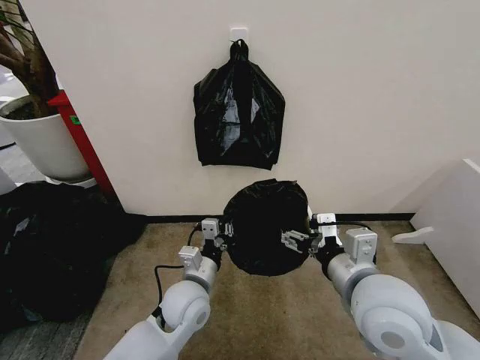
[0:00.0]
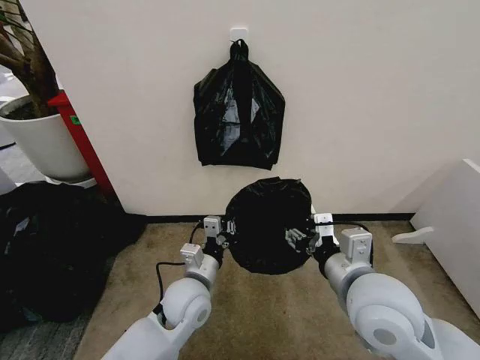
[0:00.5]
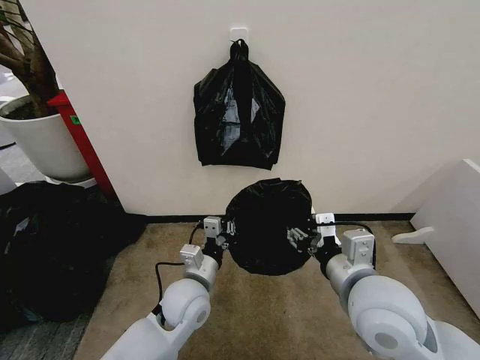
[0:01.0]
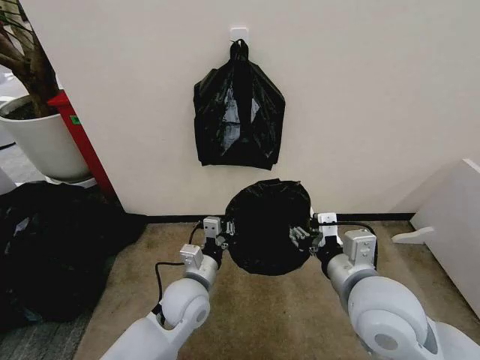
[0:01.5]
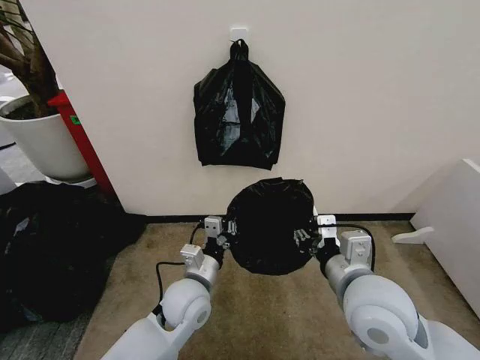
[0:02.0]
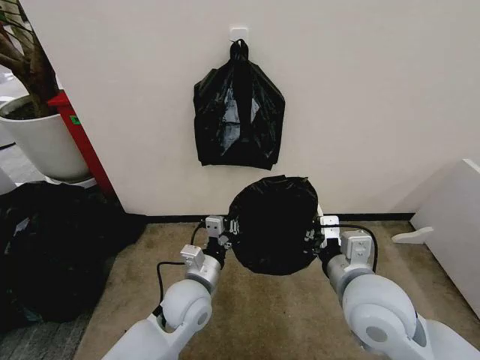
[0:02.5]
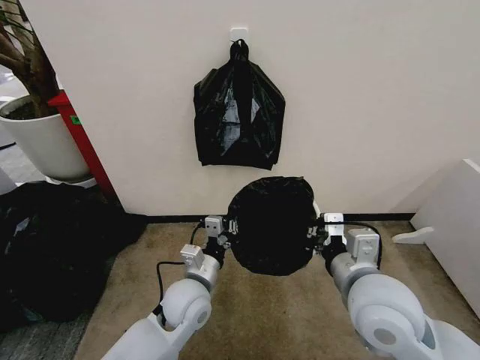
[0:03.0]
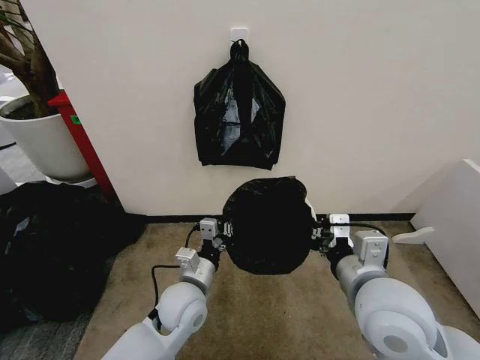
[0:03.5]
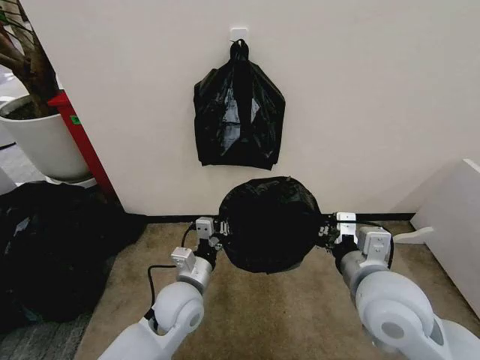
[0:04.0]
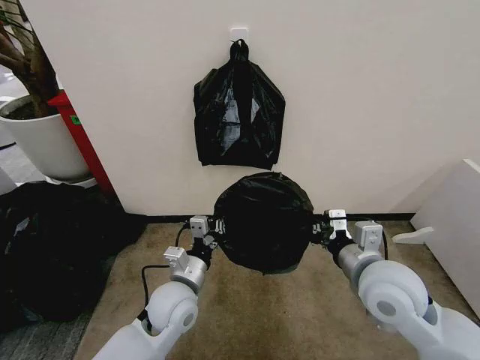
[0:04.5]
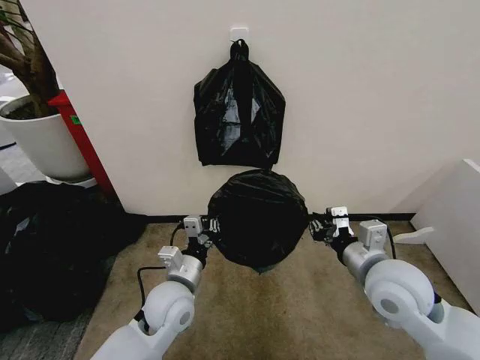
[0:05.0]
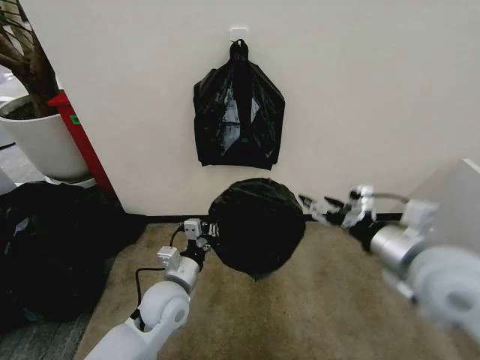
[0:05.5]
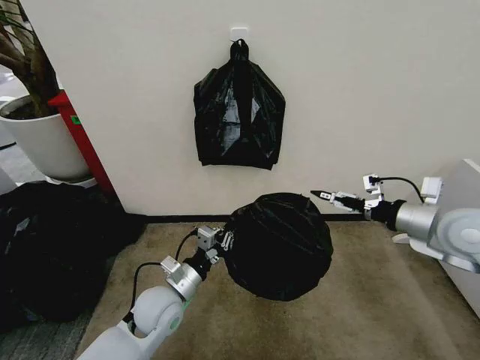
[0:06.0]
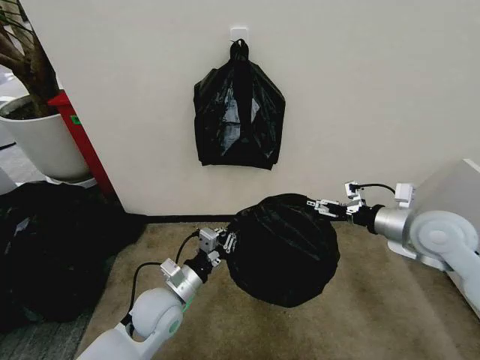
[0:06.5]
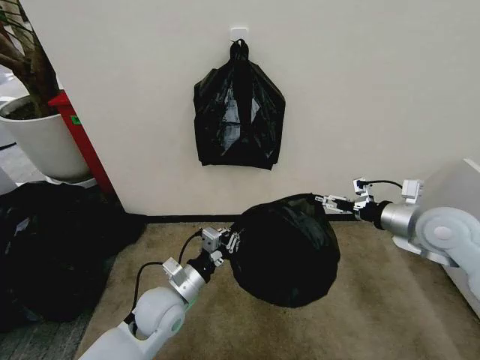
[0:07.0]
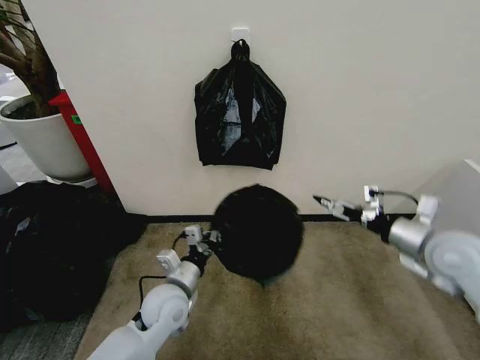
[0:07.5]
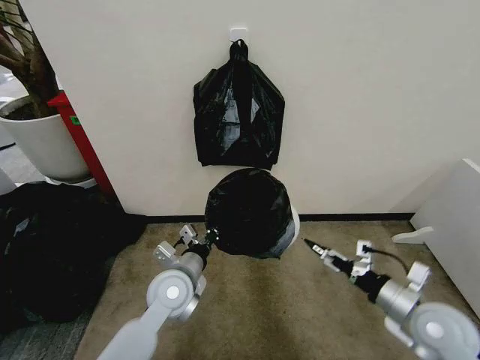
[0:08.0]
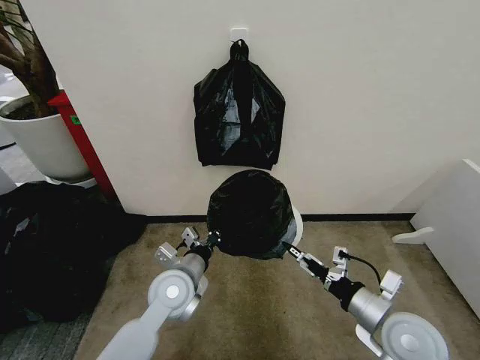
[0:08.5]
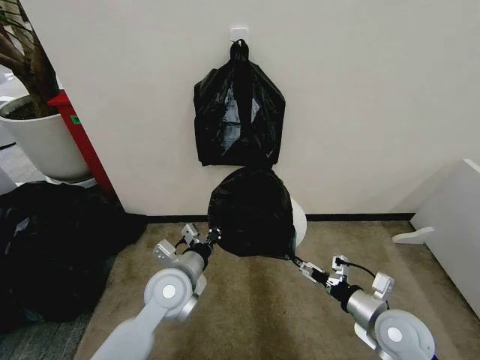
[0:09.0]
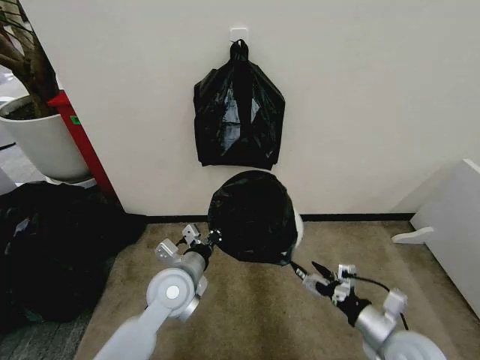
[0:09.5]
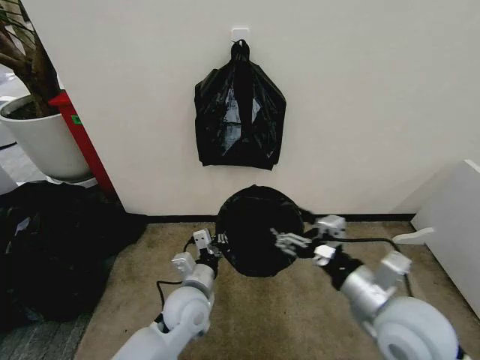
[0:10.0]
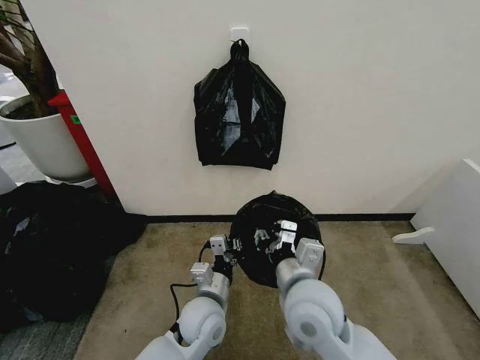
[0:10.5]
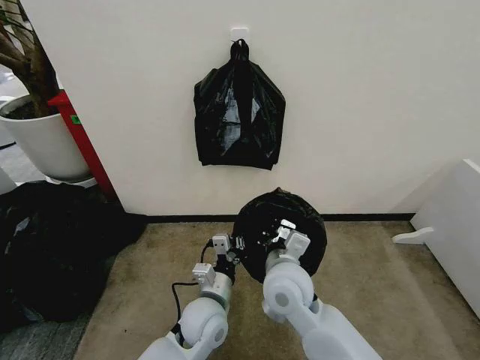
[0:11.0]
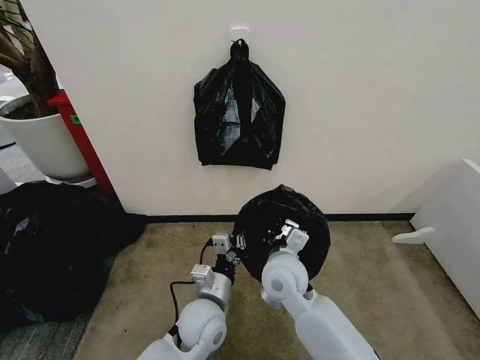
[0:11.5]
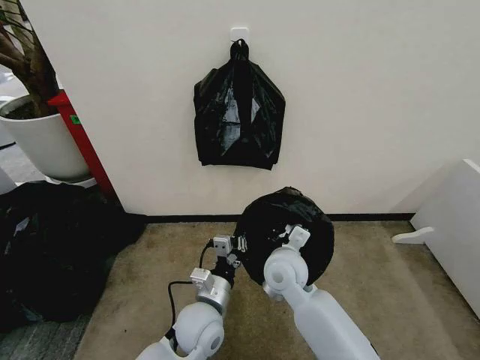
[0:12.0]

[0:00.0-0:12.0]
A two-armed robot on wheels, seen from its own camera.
Task of the whole recording: Place the garbage bag over the trash bin.
0:00.0 to 0:02.0: The right gripper closes.
0:02.0 to 0:04.0: The right gripper closes up.
0:04.0 to 0:06.0: The left gripper shifts by about 5 cm, while the right gripper heads to the right and forward, covering roughly 20 cm, and opens.
0:06.0 to 0:08.0: The right gripper is displaced downward and backward by about 20 cm.
0:08.0 to 0:10.0: The left gripper shifts by some 5 cm; the right gripper shifts approximately 15 cm to the left and upward.
0:10.0 to 0:12.0: The right gripper travels to the left, forward and downward by about 25 cm, and closes.

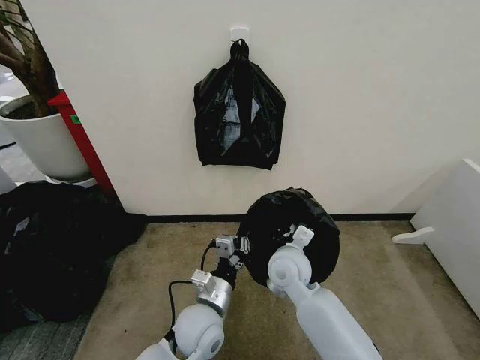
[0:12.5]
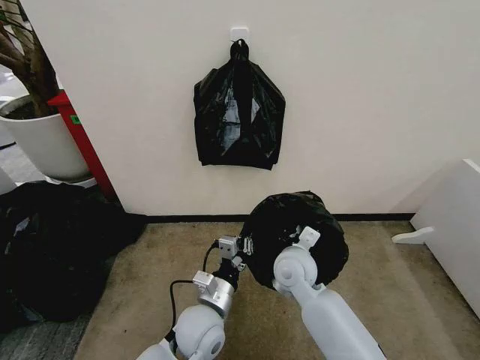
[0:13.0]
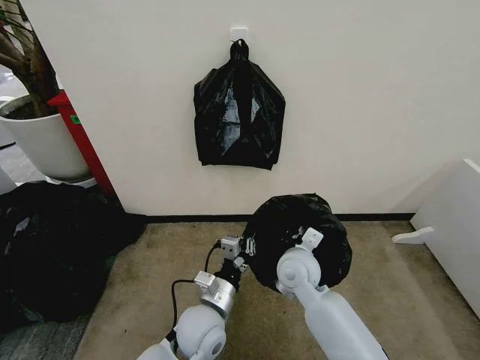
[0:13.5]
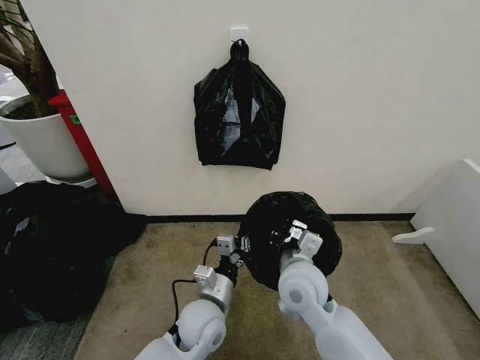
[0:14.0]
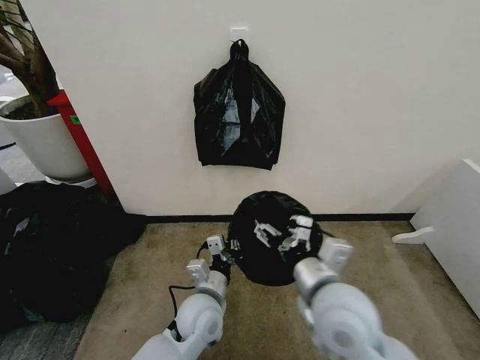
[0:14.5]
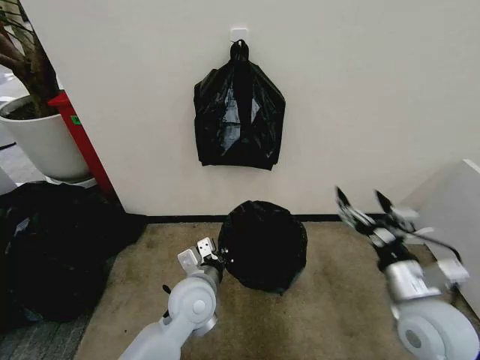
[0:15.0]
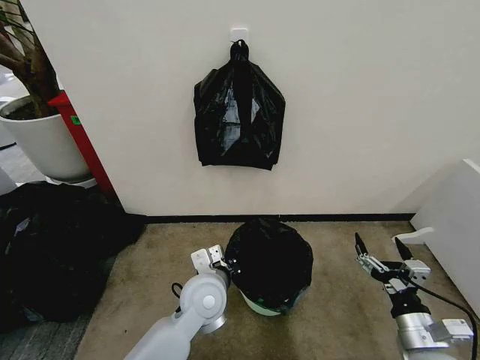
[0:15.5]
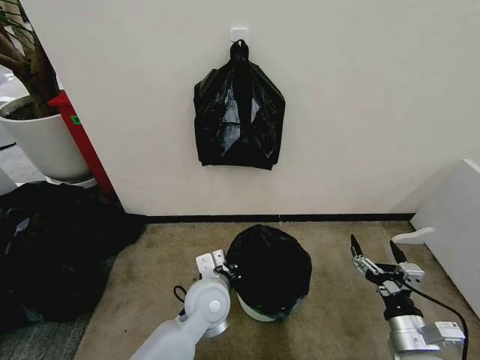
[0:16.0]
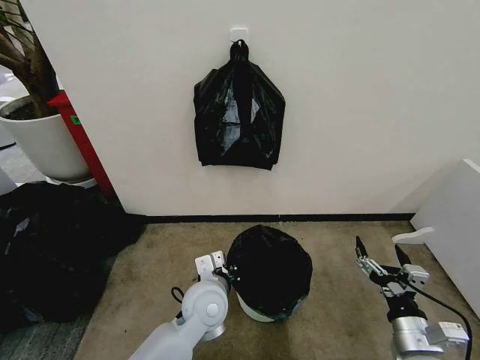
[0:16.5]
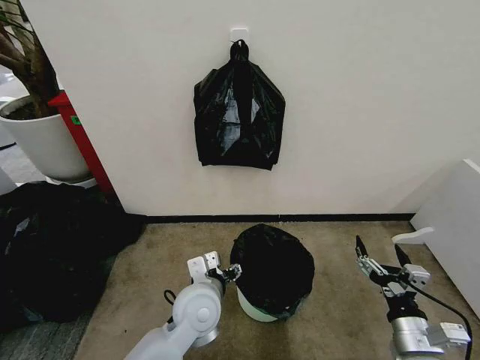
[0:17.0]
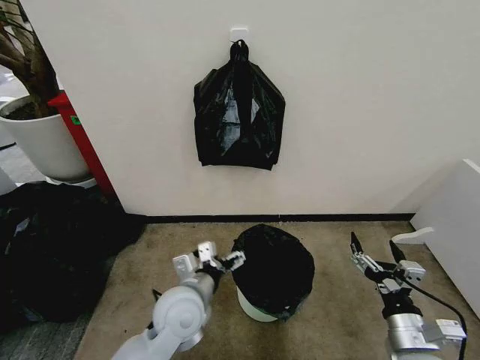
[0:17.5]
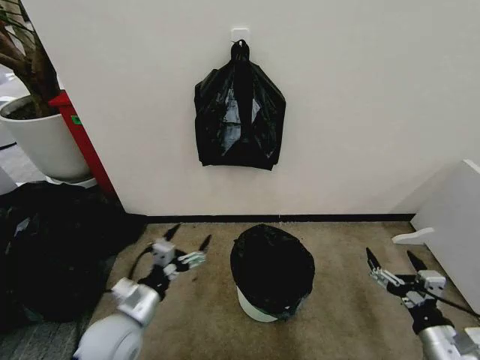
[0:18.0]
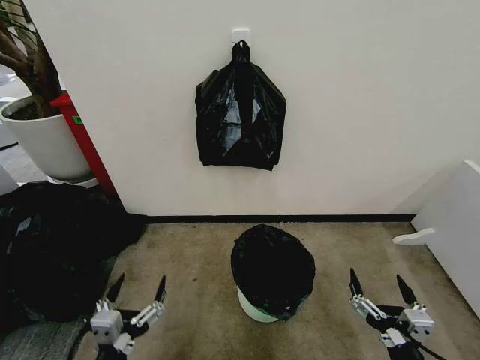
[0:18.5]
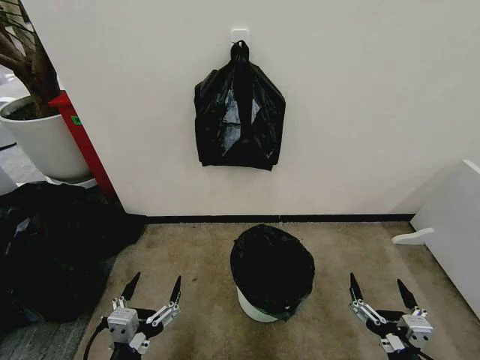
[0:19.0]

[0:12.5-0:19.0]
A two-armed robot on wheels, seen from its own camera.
Task of the whole recording: Place the garbage bag over the trash bin.
0:12.5 to 0:14.5: The right gripper shifts some 20 cm backward, upward and to the right, and opens up.
0:14.5 to 0:17.0: The right gripper is displaced to the right and downward by approximately 20 cm; the left gripper opens.
0:17.0 to 0:19.0: The left gripper shifts approximately 25 cm backward and to the left. The right gripper heads backward, covering approximately 10 cm.
